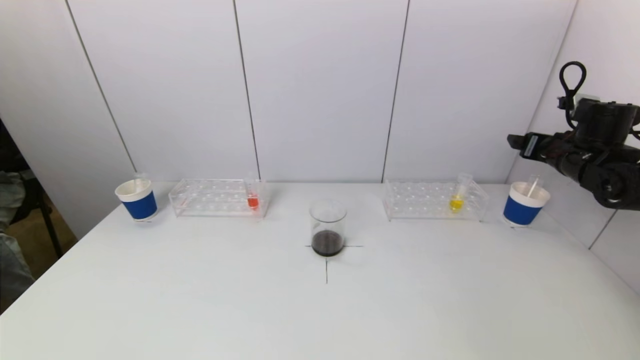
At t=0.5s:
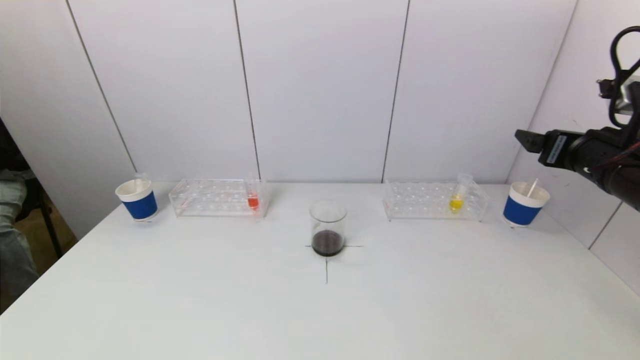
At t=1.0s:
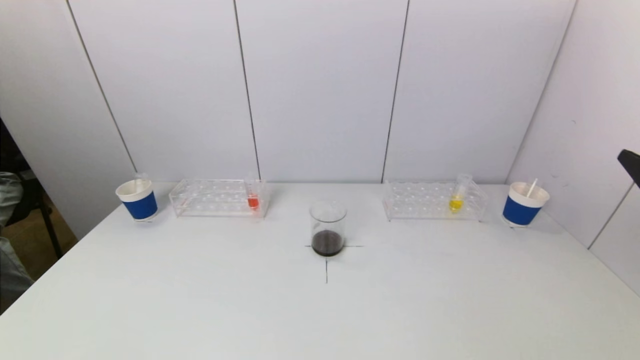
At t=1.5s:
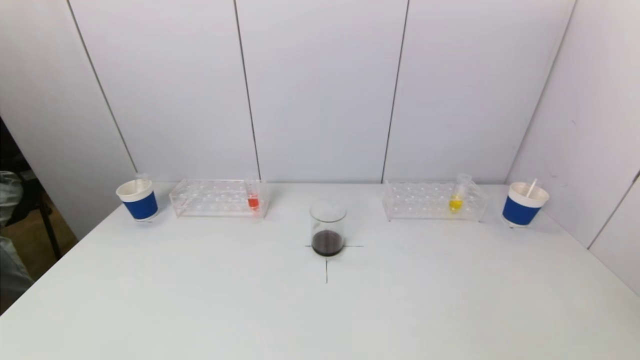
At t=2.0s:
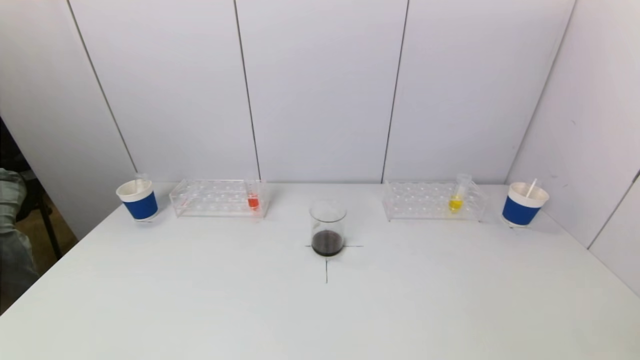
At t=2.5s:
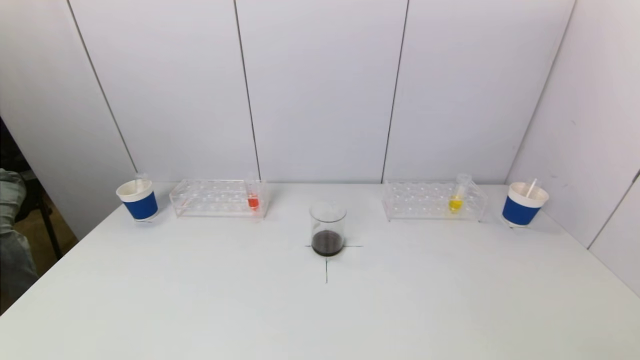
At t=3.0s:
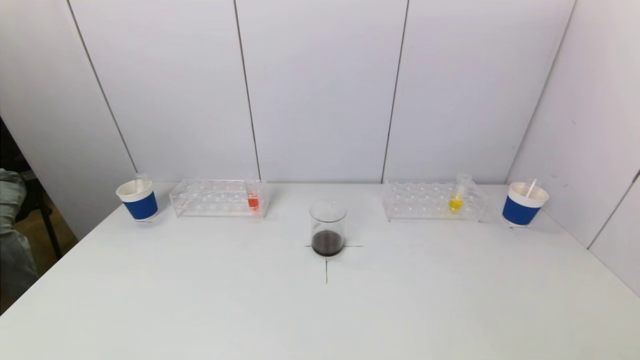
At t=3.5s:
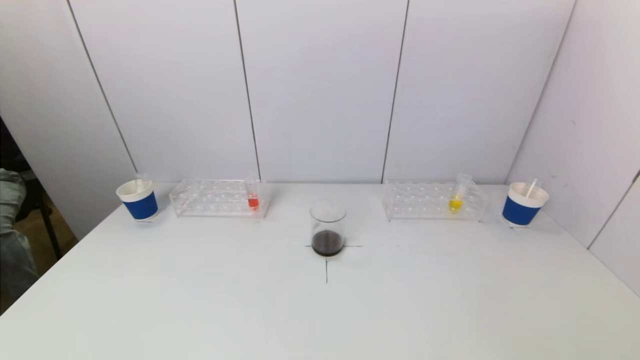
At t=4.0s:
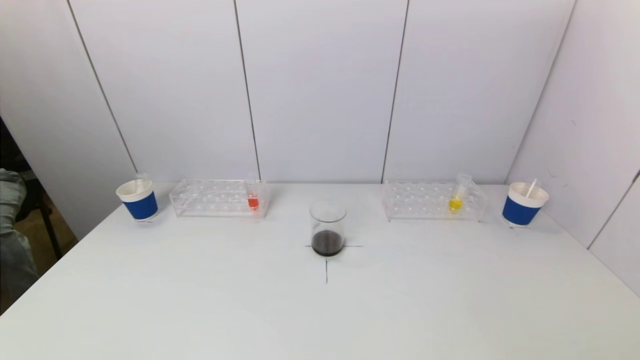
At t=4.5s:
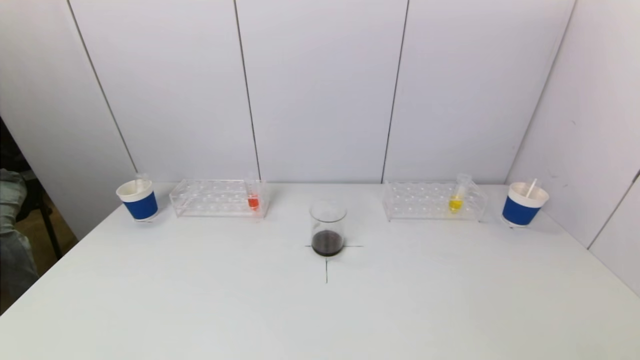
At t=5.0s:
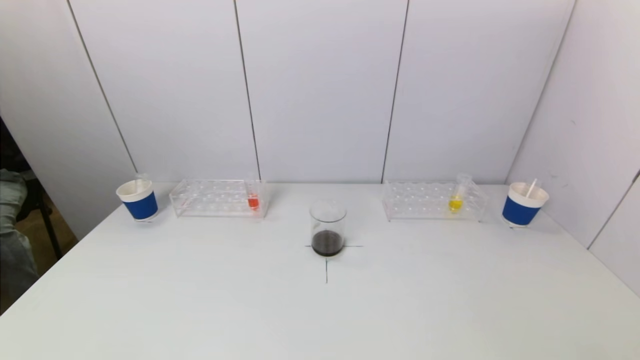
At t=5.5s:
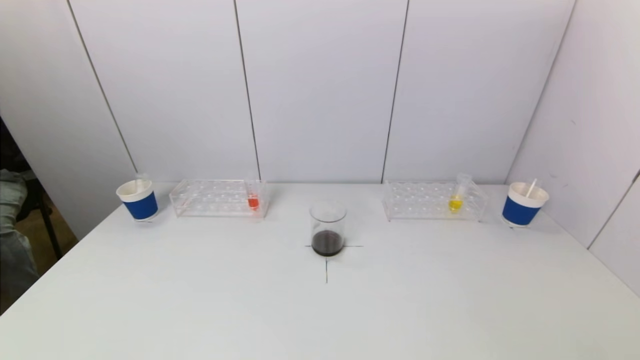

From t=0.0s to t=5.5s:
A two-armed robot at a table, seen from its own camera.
Task of the whole recording: pick up a test tube with pigment on left test tube rack and a test tube with pigment on right test tube rack by grippers and pour them into the beaker.
From t=0.0s to t=2.0s: The right gripper moves backward, approximately 40 cm.

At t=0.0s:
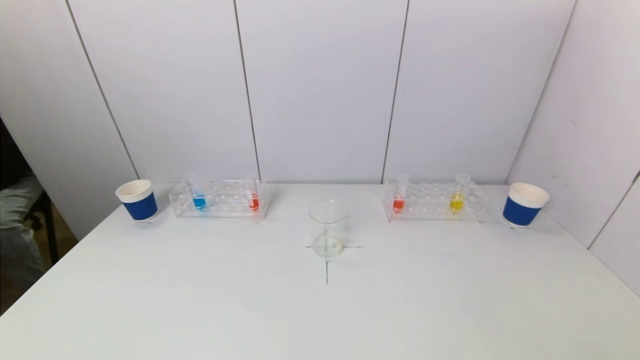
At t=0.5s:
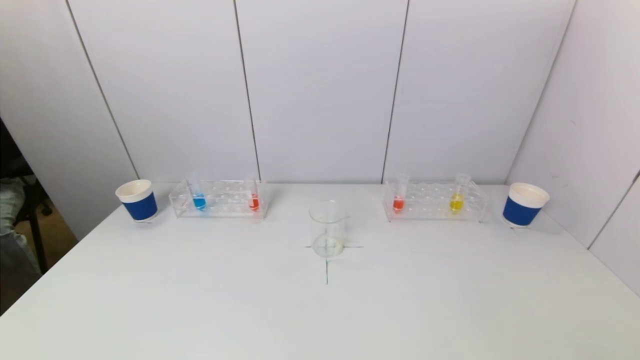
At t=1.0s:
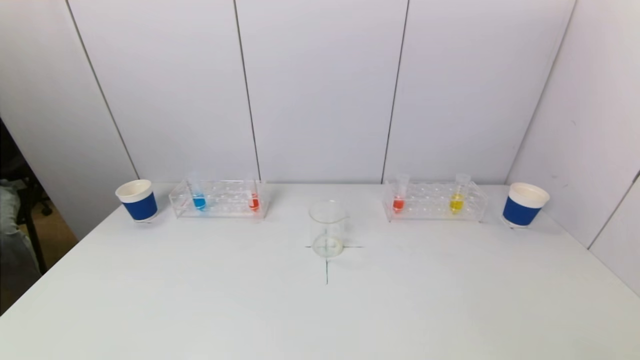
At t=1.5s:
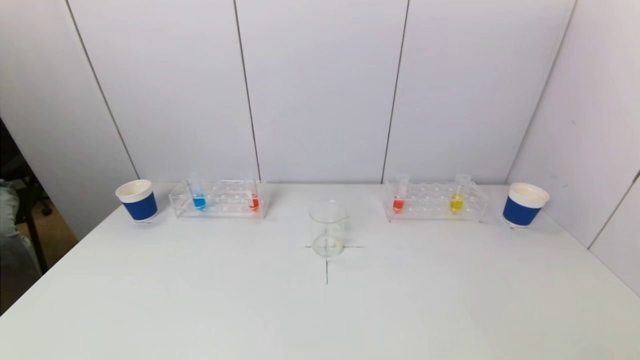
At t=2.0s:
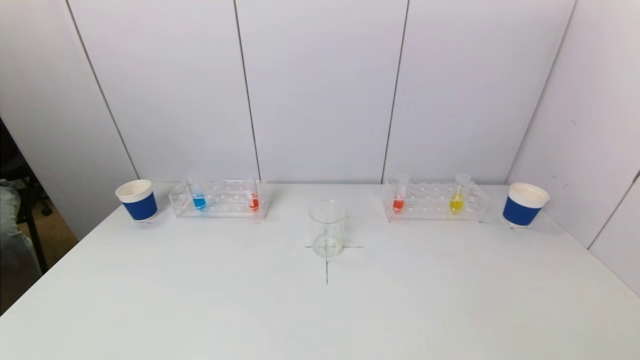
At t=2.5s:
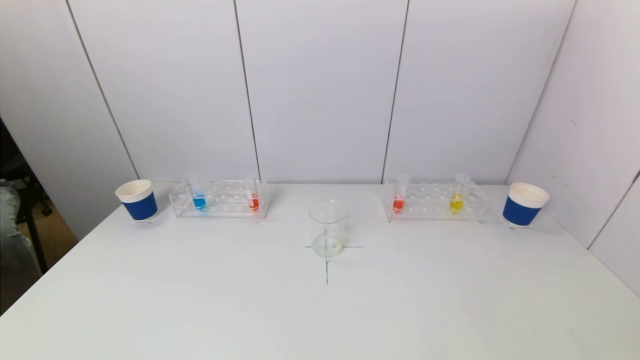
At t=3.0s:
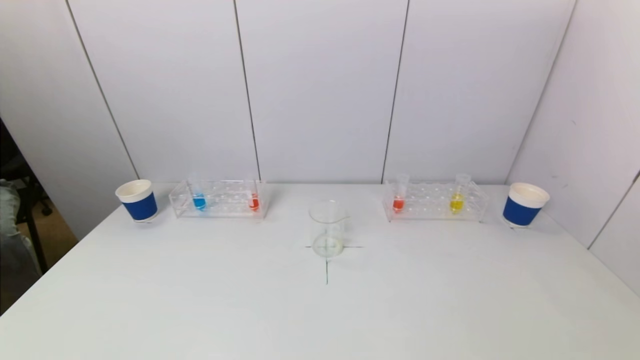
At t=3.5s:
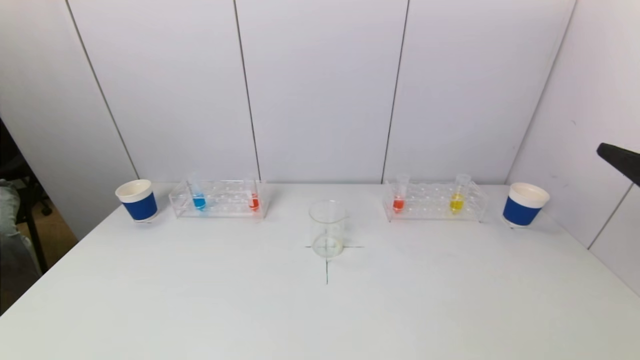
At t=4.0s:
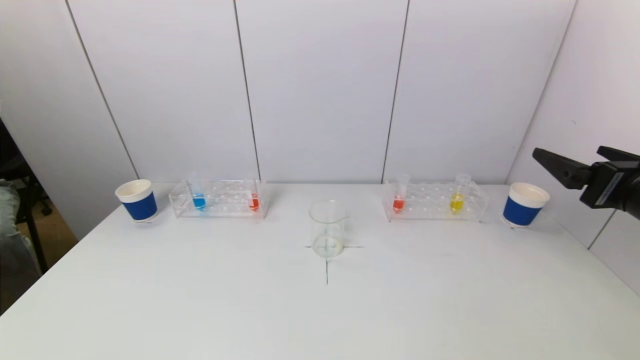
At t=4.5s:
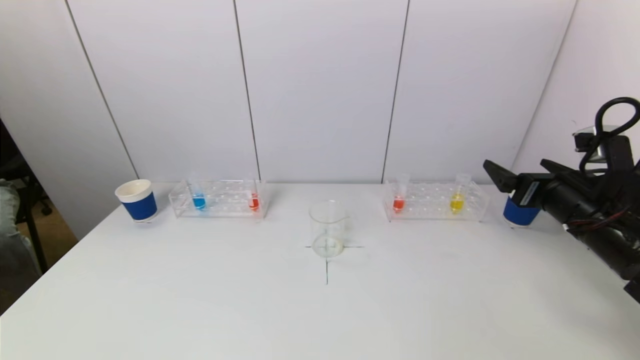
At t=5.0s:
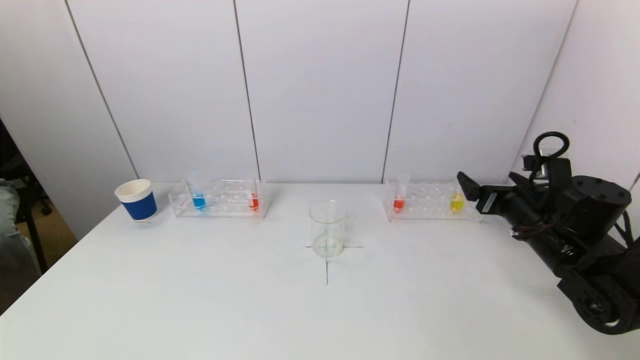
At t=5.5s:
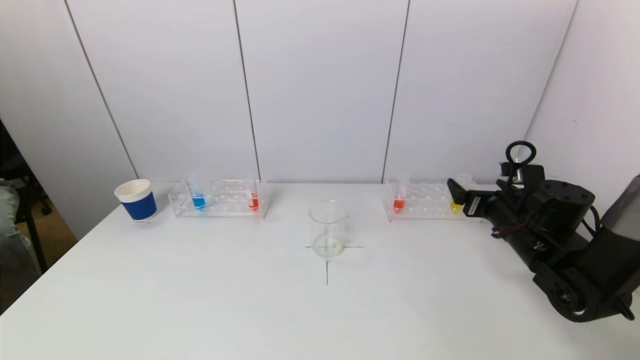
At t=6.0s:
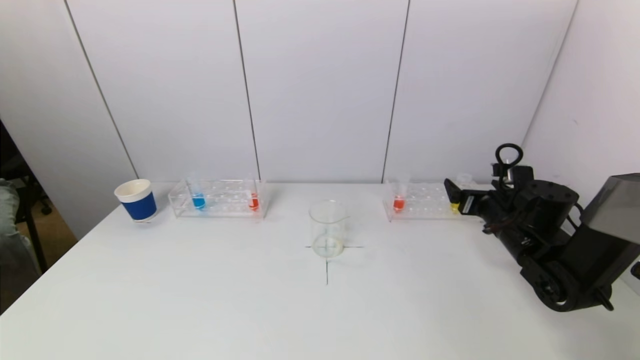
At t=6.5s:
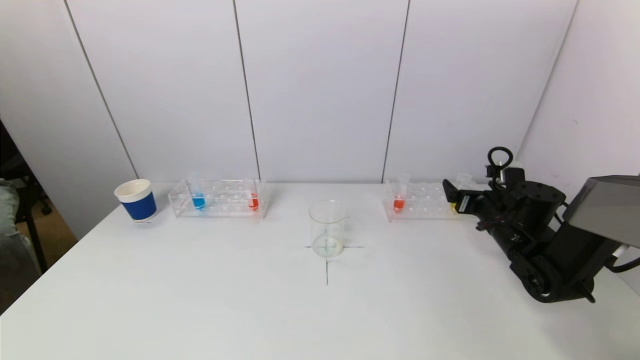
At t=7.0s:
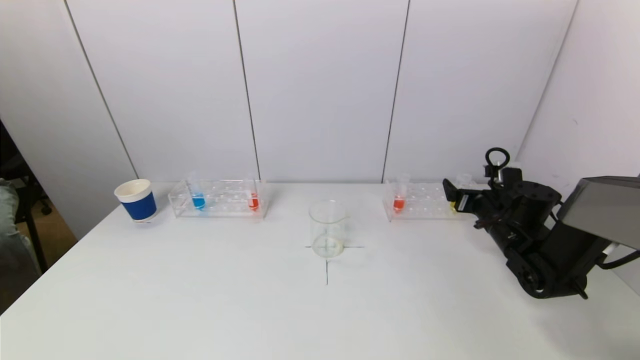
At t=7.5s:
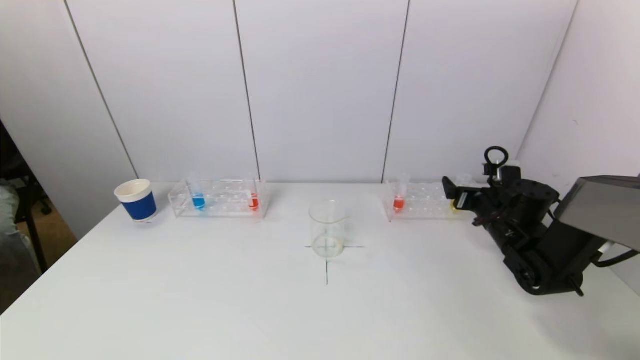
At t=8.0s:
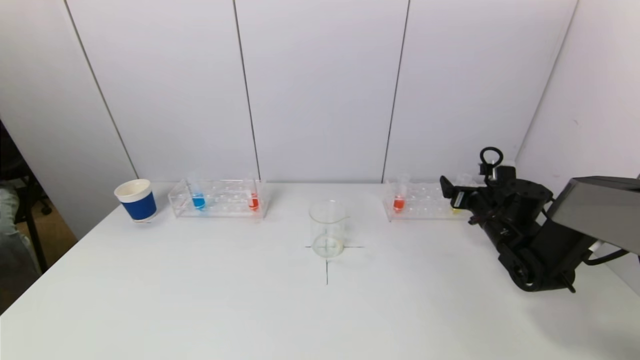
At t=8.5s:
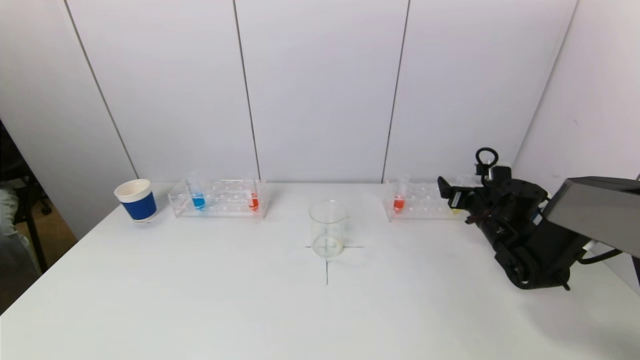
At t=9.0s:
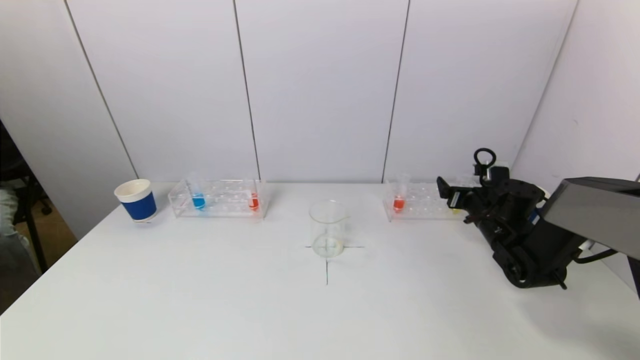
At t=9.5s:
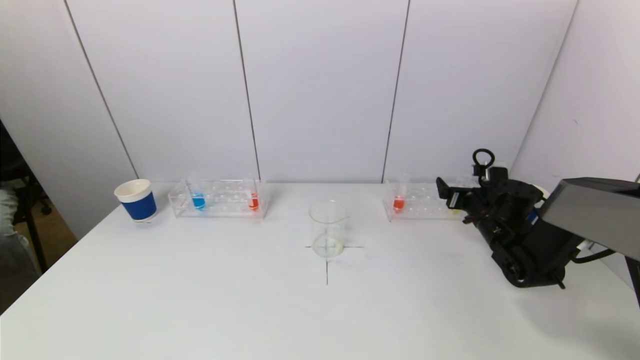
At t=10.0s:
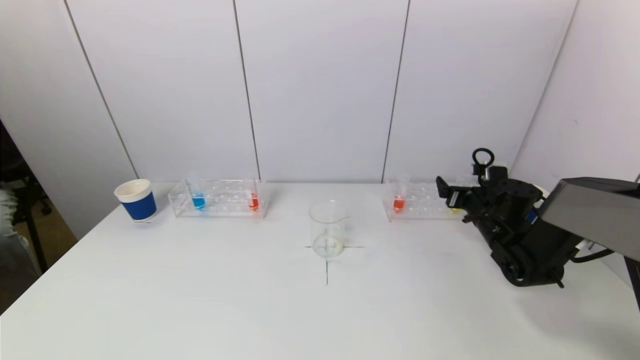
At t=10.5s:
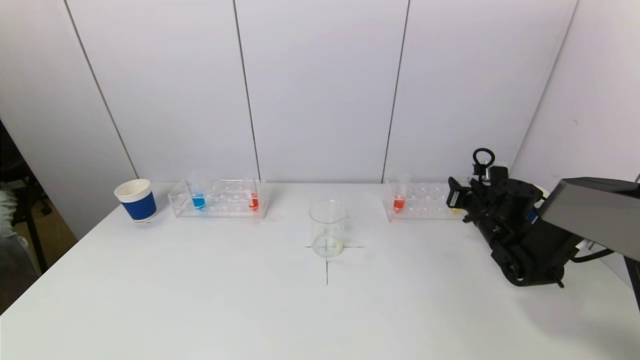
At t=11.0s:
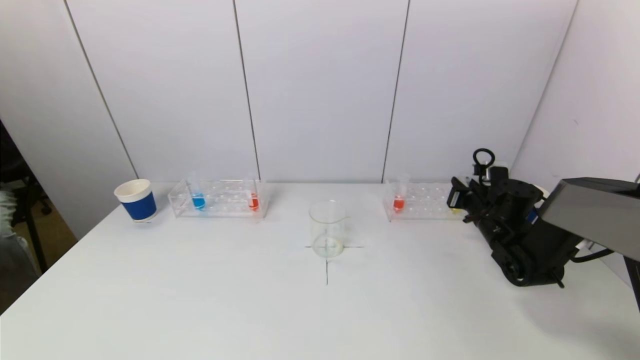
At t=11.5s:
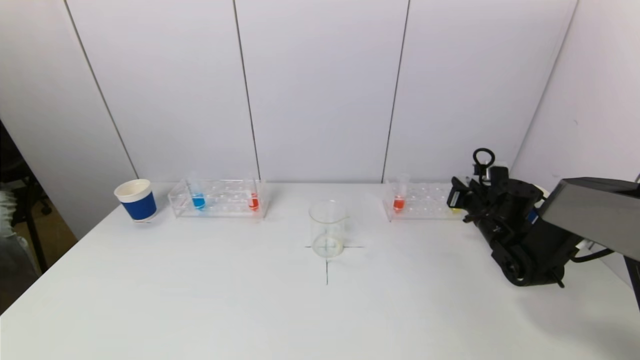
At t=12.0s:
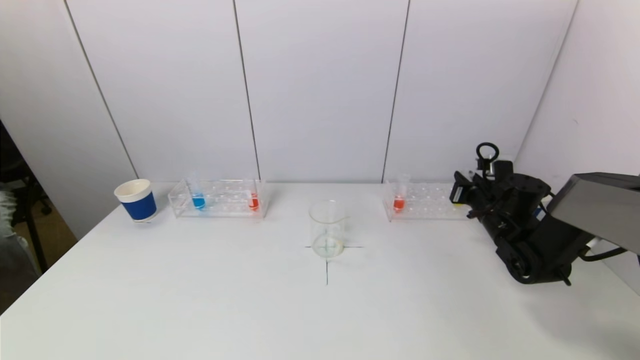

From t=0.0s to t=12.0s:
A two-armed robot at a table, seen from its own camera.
Task of the whole recording: pick up a test tube with pigment on left test tube rack and a test tube with pigment on right test tube rack by grippers and pour them into the beaker.
Step, from t=0.0s to t=10.5s: Grasp the yellow reagent with the right gripper.
From t=2.0s to t=4.0s: The right gripper travels forward and upward by approximately 25 cm.
From t=4.0s to t=6.0s: The right gripper heads forward and downward, covering some 20 cm.
From t=6.0s to t=8.0s: The right gripper shifts by roughly 5 cm.
From t=8.0s to t=10.0s: The grippers move only a little.
From t=10.0s to t=12.0s: The right gripper closes.

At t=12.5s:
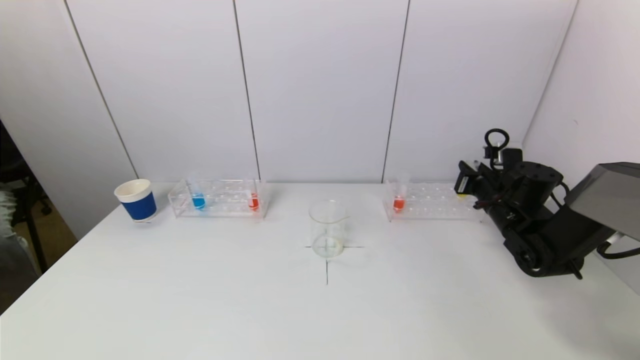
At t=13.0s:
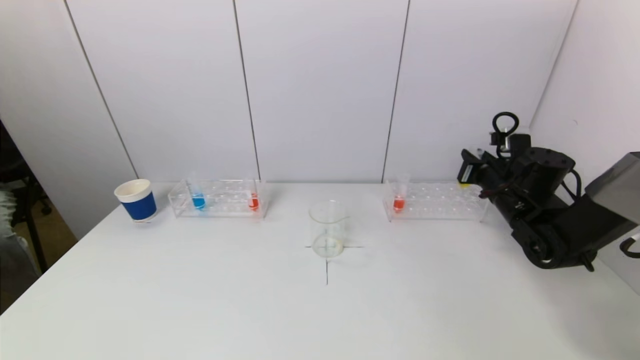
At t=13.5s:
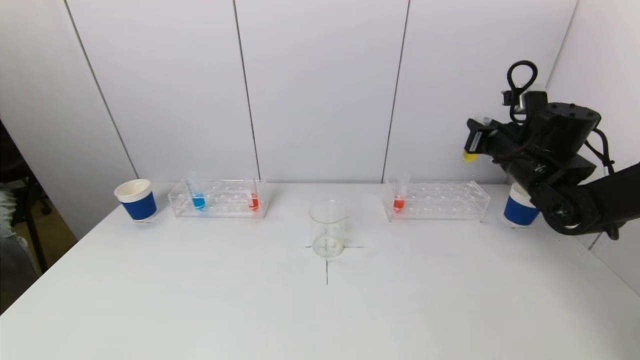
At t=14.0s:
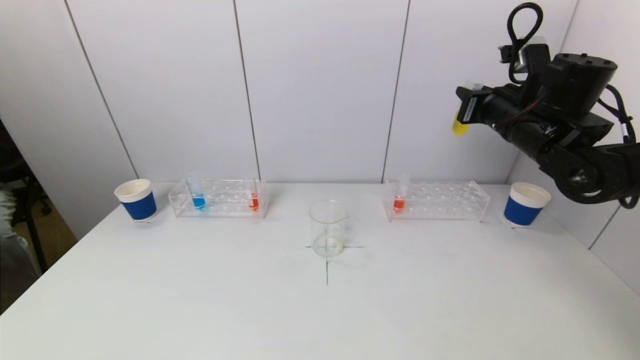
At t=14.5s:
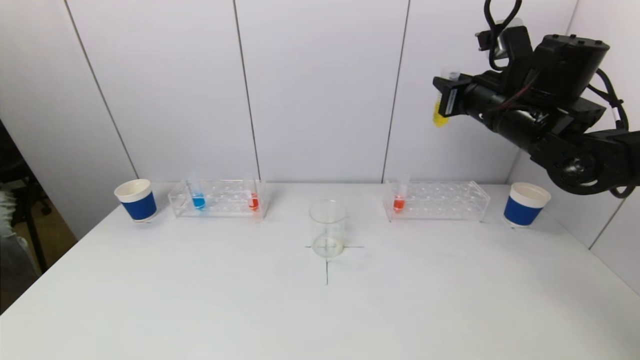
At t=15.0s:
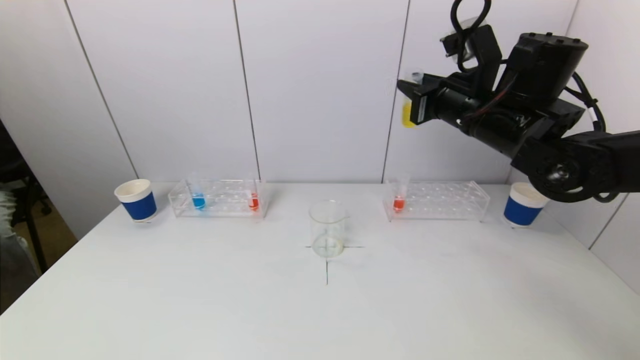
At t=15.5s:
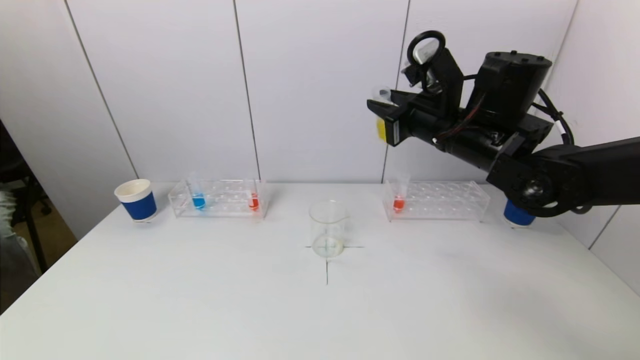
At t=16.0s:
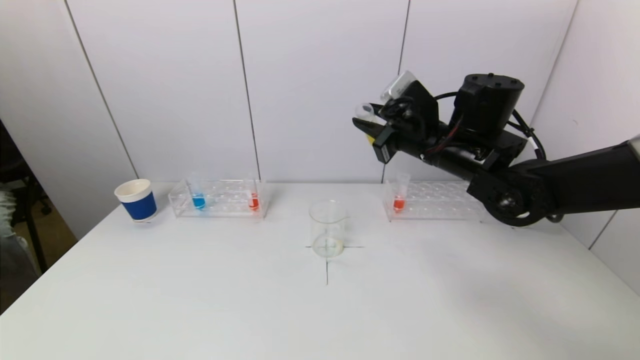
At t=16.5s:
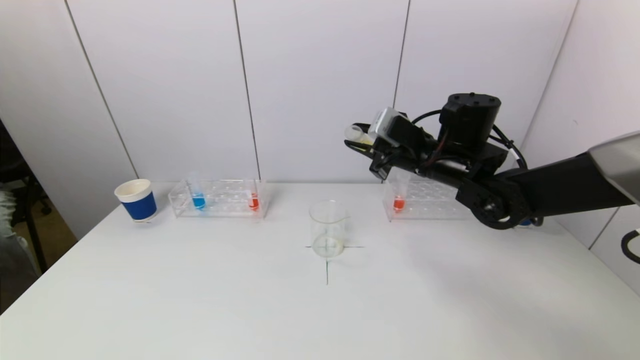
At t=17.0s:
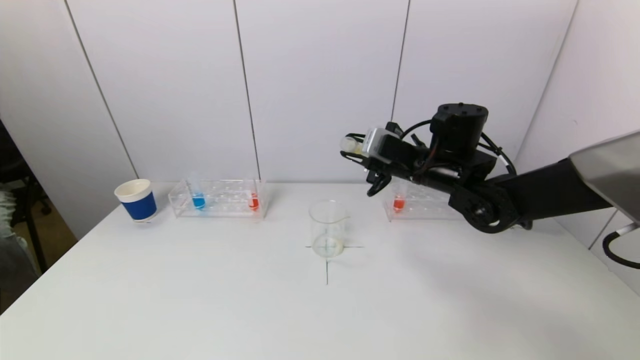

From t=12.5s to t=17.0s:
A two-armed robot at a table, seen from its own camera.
Task of the whole recording: pick up a test tube with pigment on left test tube rack and a test tube with pigment on right test tube rack by grippers and pour them into the beaker.
From t=12.5s to t=14.5s: The right gripper goes roughly 20 cm upward and to the left.
From t=14.5s to t=17.0s: The right gripper moves downward and to the left, about 10 cm.
